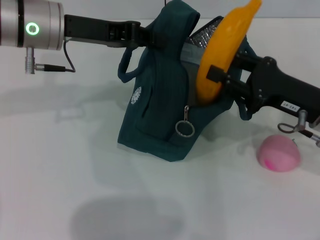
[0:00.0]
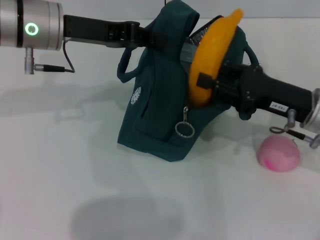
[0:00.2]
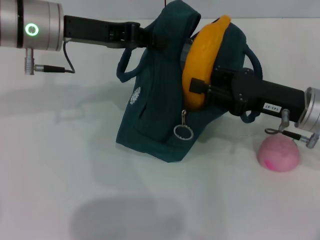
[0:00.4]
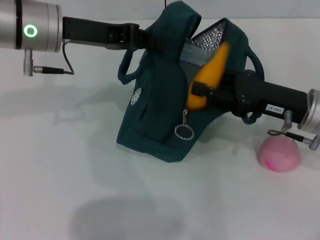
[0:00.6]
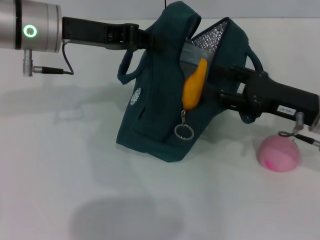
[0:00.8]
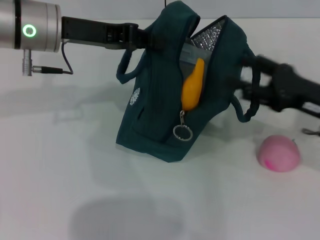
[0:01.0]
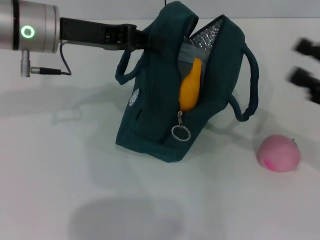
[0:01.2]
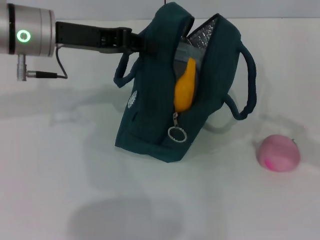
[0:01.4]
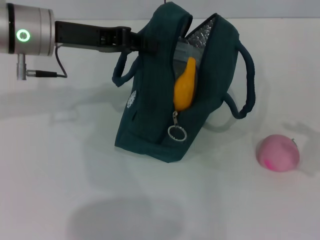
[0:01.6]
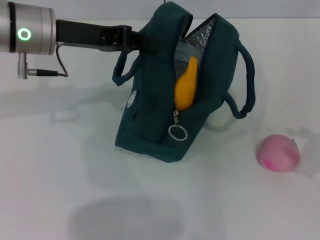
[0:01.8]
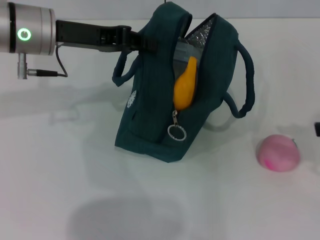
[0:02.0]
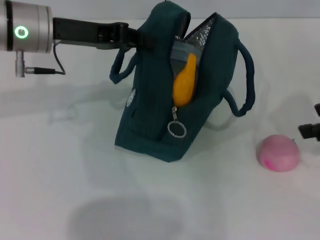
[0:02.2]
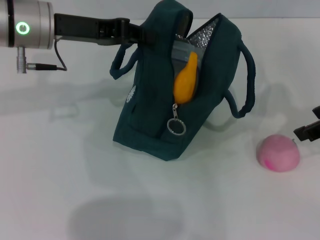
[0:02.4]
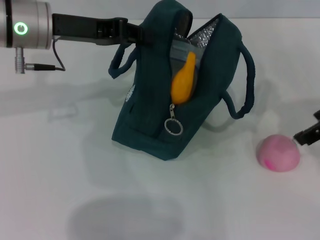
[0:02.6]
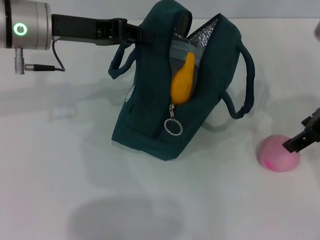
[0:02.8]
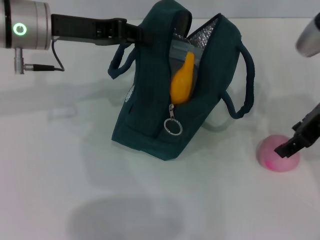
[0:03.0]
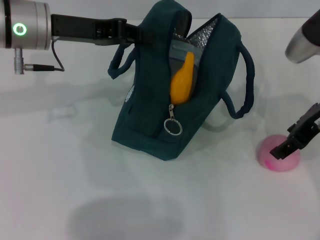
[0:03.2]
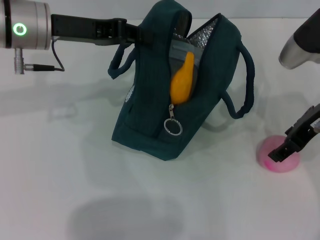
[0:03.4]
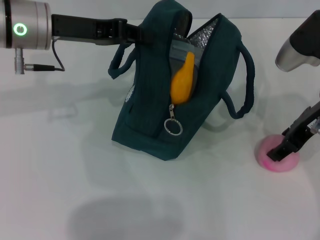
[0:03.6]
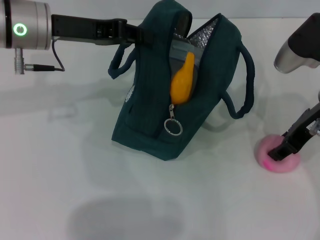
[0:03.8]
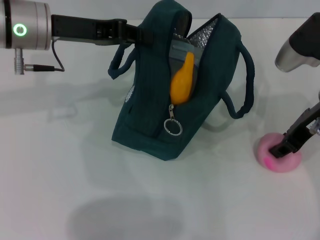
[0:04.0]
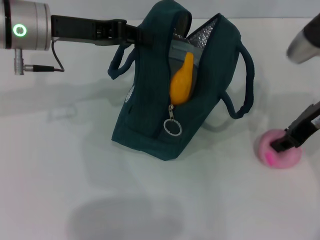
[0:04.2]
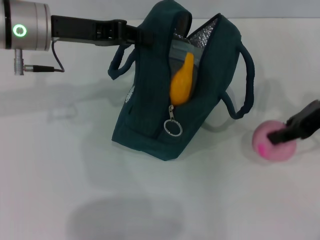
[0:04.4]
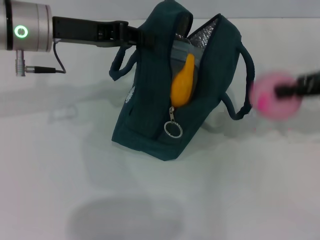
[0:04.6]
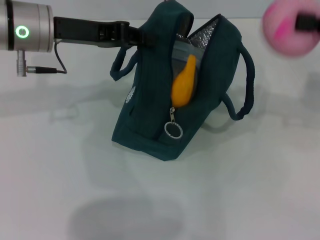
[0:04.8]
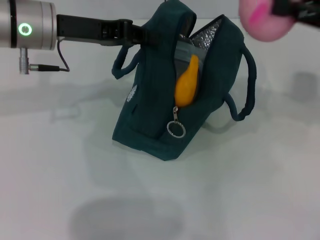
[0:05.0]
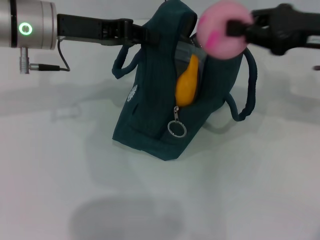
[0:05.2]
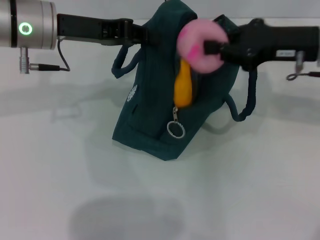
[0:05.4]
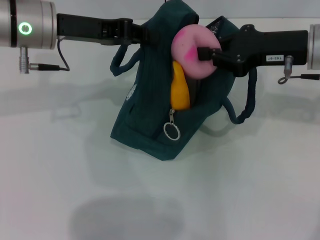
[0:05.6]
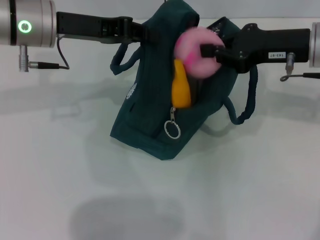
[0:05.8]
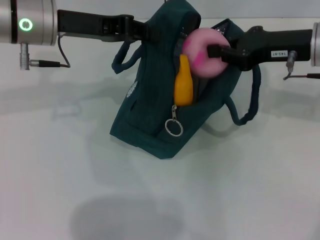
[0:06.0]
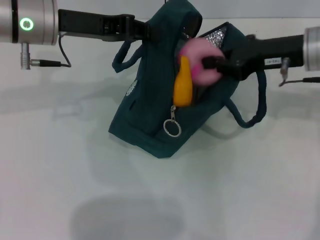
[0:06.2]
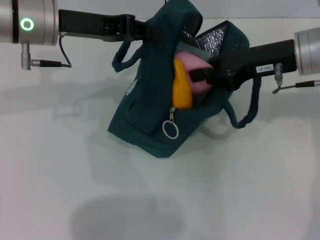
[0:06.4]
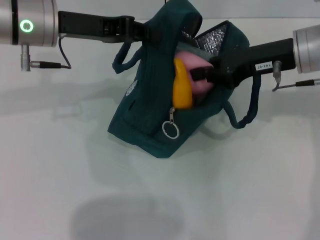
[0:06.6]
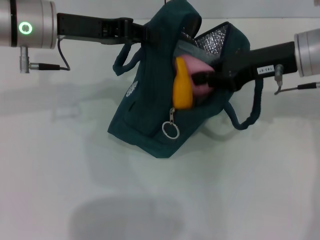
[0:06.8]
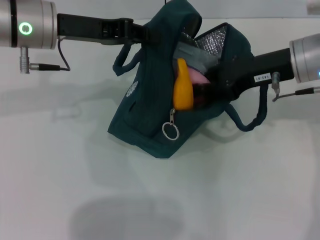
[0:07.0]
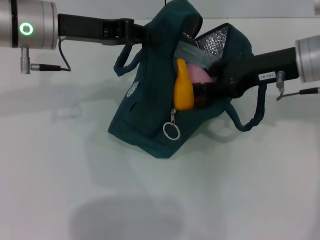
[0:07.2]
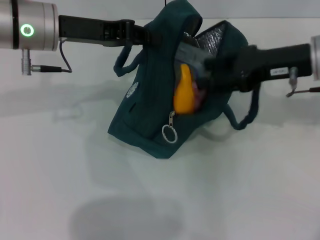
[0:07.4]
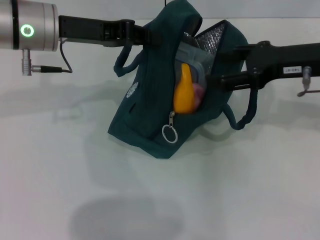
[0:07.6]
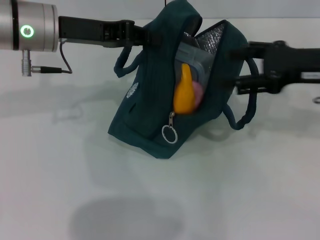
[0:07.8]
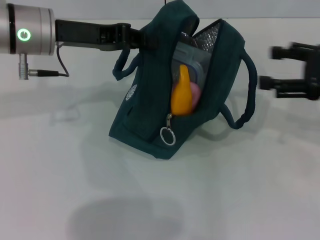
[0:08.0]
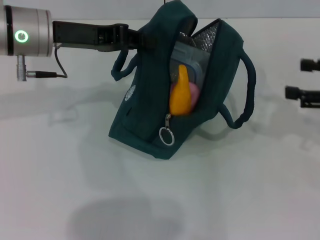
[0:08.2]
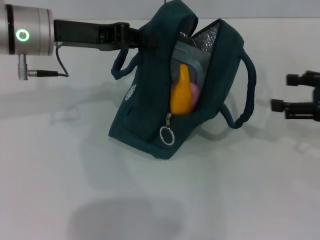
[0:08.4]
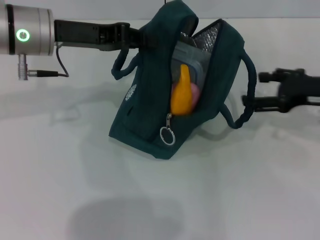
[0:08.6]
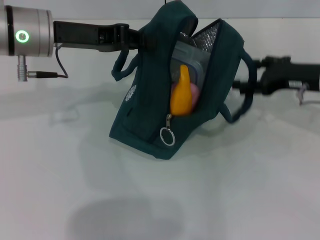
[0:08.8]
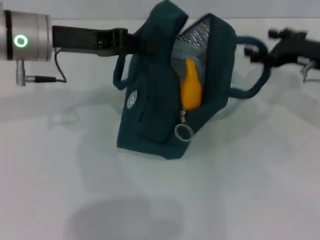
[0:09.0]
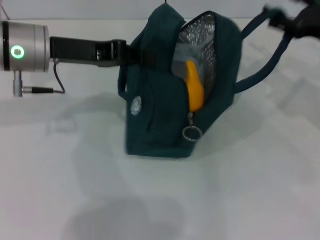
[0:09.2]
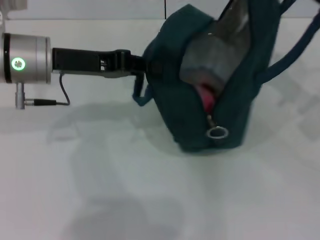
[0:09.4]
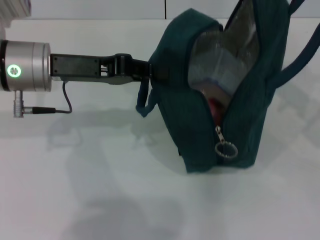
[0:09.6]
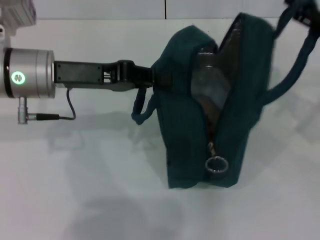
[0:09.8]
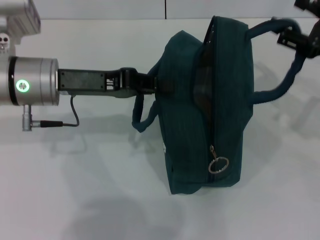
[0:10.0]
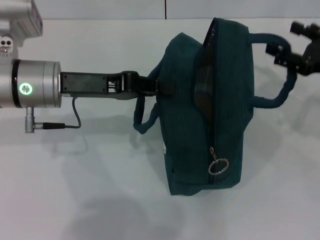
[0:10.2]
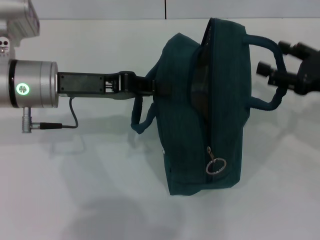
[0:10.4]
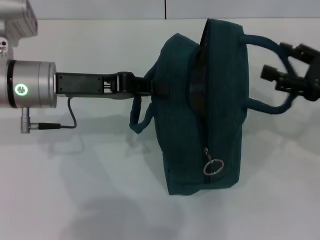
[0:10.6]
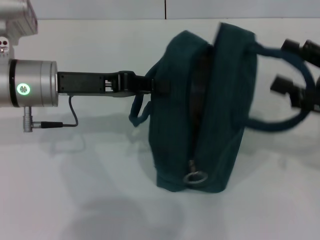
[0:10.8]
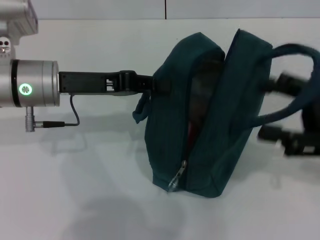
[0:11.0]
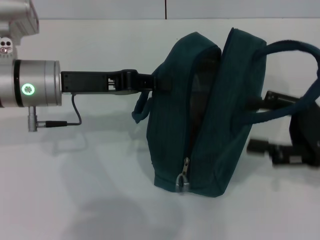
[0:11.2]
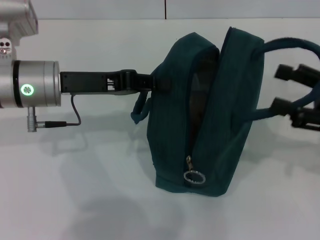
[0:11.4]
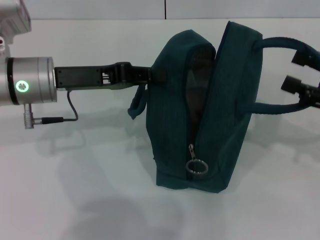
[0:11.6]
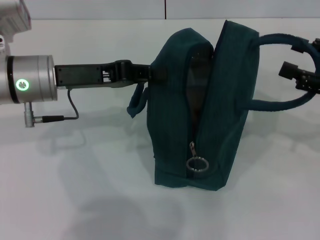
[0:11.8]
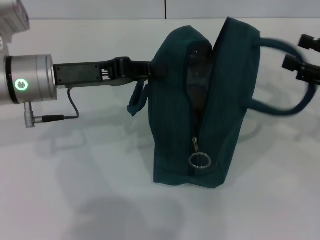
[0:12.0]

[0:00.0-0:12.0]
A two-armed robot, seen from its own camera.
Step, 0:01.0 to 0:04.2: Grab the peach with your right hand.
Step, 0:07.8 to 0:10.4: Hold the lunch bag with your right hand.
0:00.0 to 0:01.6: The right gripper heads to the right and backward, covering roughly 15 cm, and opens.
0:01.6 to 0:03.0: The right gripper goes approximately 20 cm to the left, forward and upward.
0:03.0 to 0:04.4: The right gripper closes.
0:04.4 to 0:06.0: The right gripper moves about 5 cm to the right and comes back.
0:06.0 to 0:07.6: The right gripper opens up.
0:07.6 to 0:09.0: The right gripper is displaced downward by some 5 cm.
0:09.0 to 0:10.4: The right gripper moves backward, roughly 5 cm; the left gripper changes place by about 5 cm.

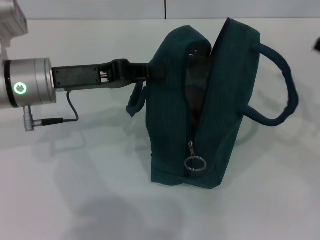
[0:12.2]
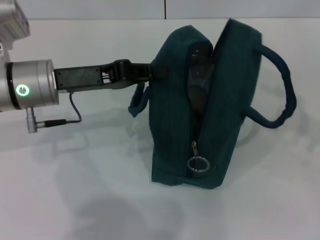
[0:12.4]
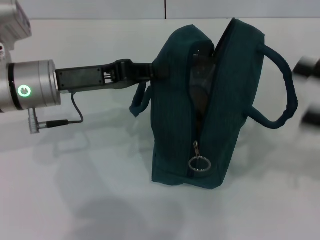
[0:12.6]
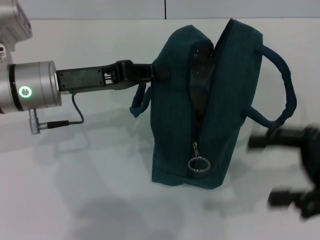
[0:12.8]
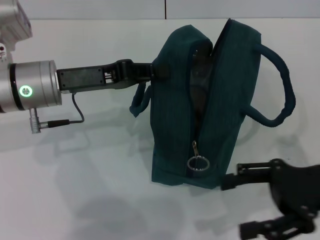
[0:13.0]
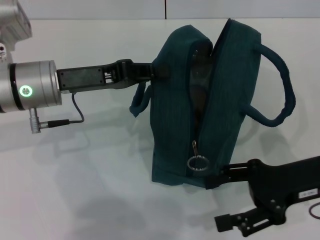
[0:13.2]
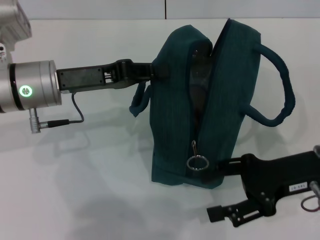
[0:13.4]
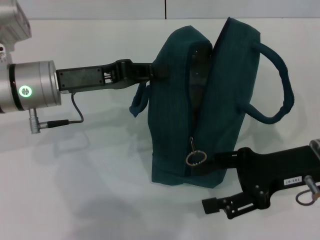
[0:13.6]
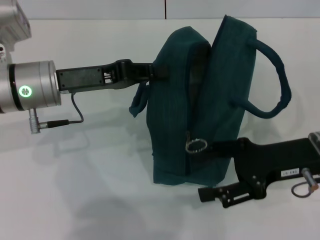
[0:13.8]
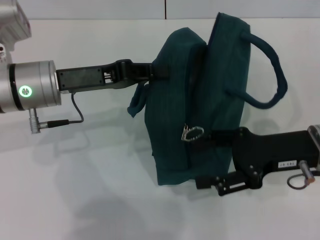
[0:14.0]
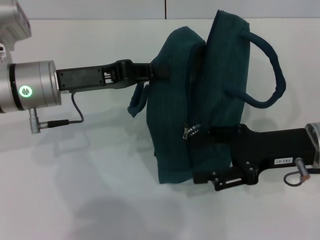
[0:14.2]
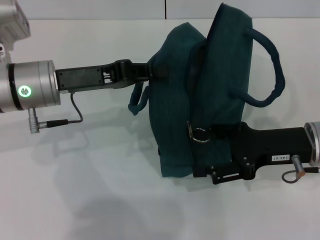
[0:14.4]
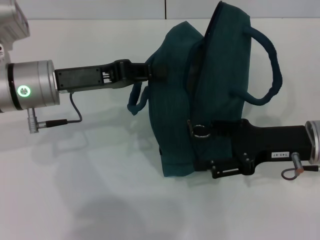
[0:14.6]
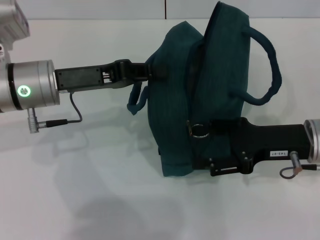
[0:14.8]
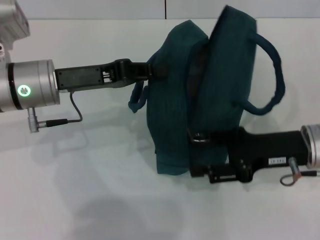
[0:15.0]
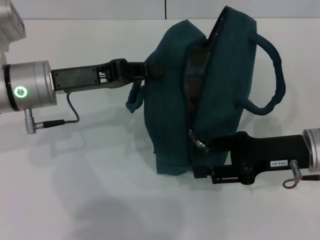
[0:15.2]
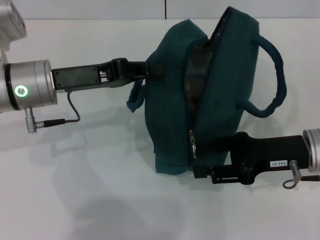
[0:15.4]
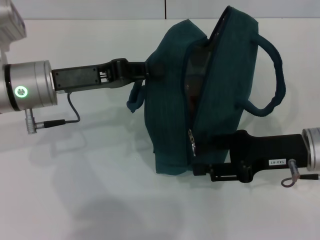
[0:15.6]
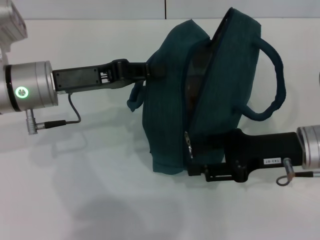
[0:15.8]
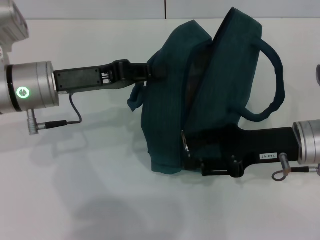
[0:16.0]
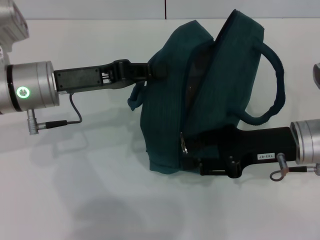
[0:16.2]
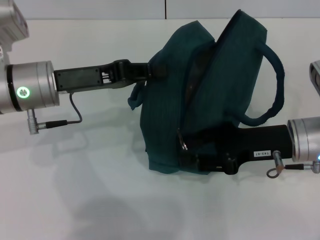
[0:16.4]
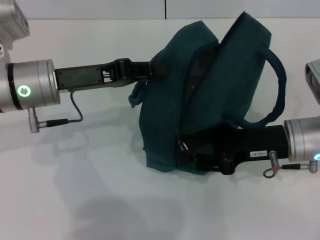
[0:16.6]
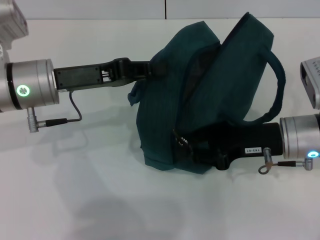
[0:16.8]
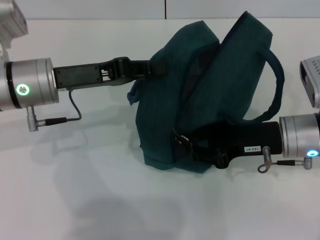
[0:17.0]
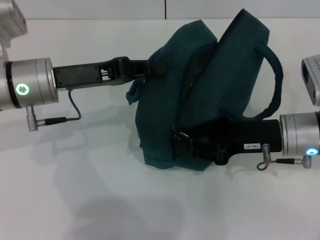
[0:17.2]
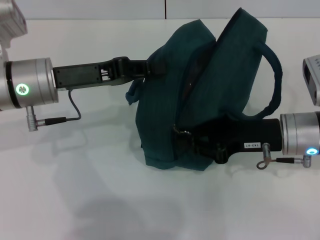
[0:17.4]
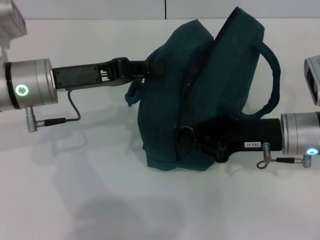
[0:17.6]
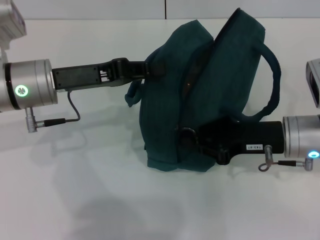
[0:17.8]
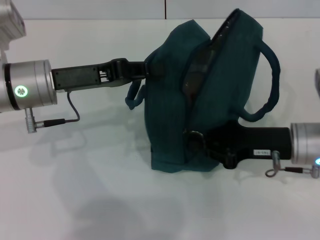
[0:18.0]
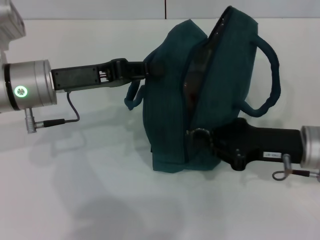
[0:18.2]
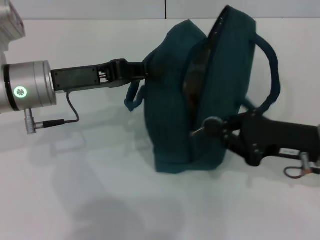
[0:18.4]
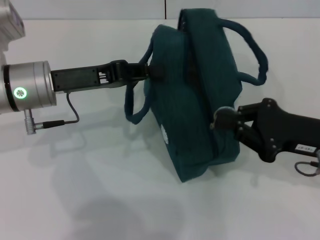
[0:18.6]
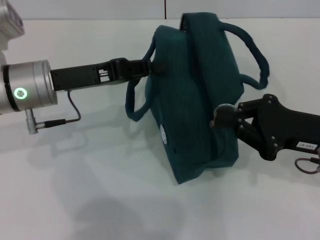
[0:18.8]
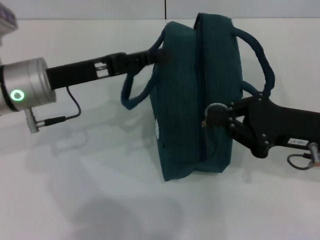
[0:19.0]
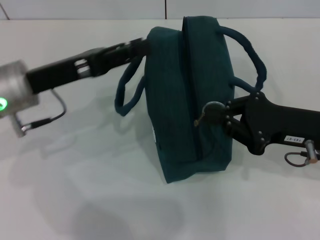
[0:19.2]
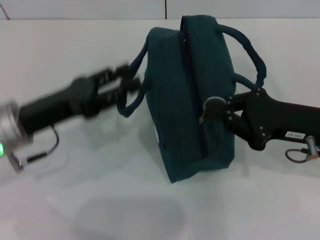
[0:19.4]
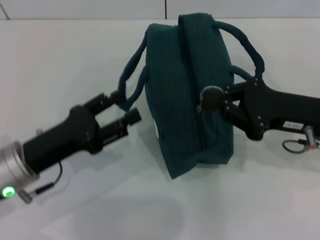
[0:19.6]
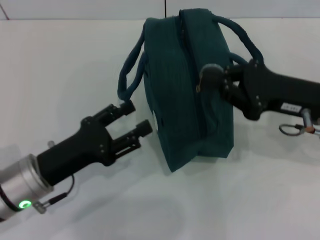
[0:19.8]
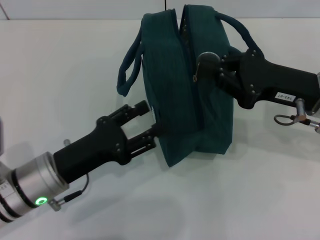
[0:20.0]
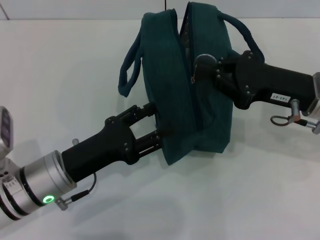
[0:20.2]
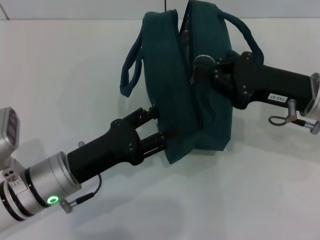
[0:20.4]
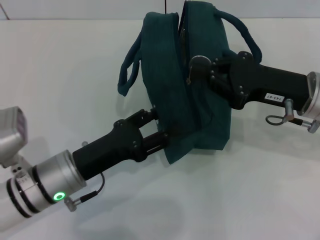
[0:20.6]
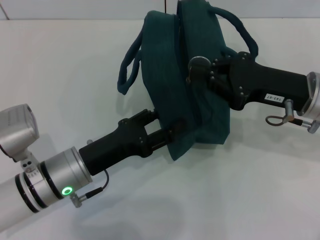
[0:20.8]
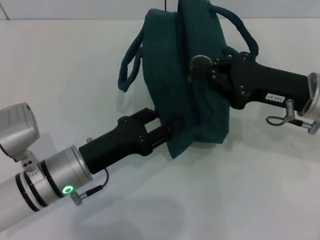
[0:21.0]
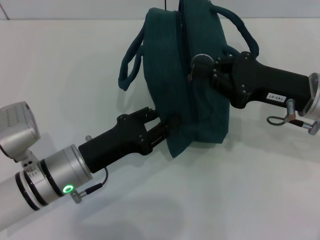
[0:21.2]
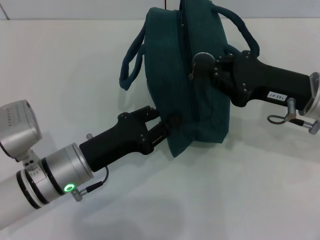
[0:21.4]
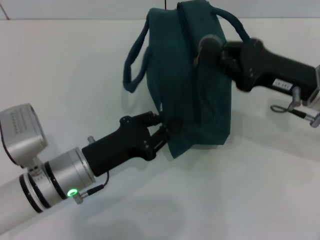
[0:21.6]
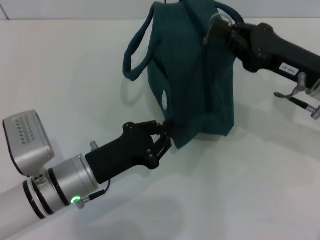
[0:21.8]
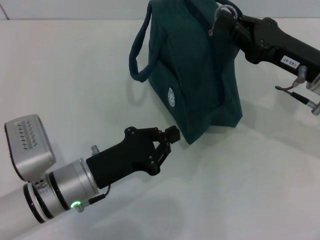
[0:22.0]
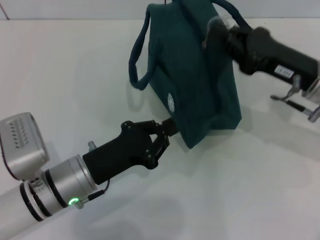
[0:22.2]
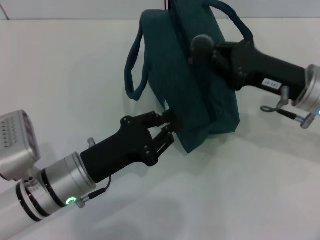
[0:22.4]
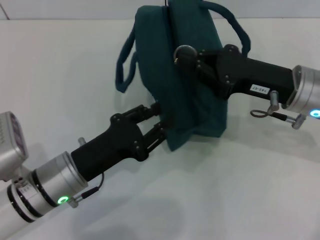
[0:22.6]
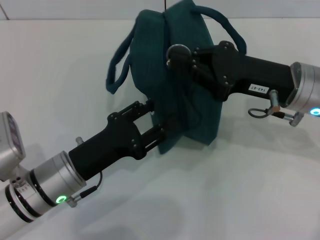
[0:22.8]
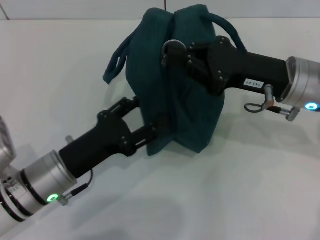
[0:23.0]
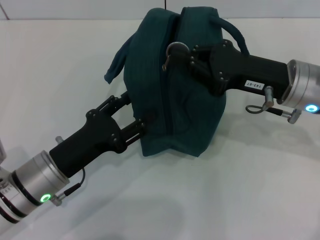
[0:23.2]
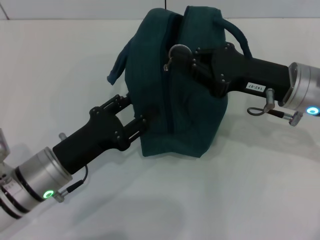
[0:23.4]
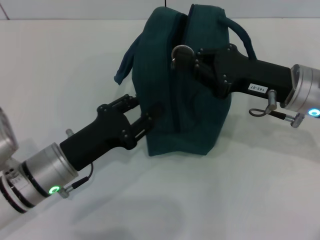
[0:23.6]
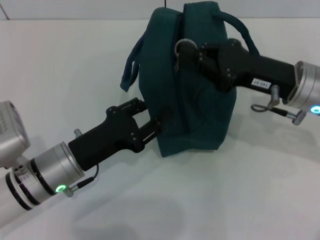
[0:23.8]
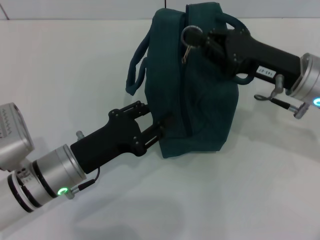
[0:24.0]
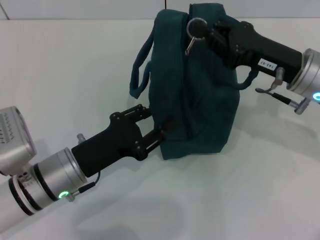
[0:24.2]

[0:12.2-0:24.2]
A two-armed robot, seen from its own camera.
0:12.2 to 0:13.8: The right gripper goes roughly 15 cm to the left.
0:13.8 to 0:16.6: There are only small adjustments of the grippers.
0:16.6 to 0:18.2: The right gripper closes.
0:18.2 to 0:19.8: The right gripper shifts by approximately 5 cm, while the left gripper travels backward and downward by roughly 15 cm, and opens its fingers.
0:19.8 to 0:21.2: The left gripper ends up some 5 cm from where it was.
0:21.2 to 0:22.6: The left gripper closes its fingers.
0:22.6 to 0:24.2: The left gripper opens, then closes once more.
